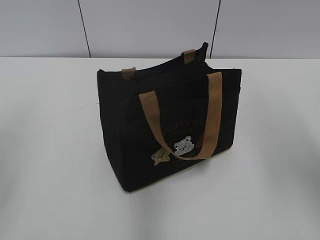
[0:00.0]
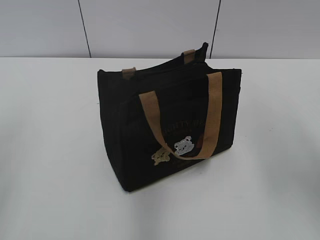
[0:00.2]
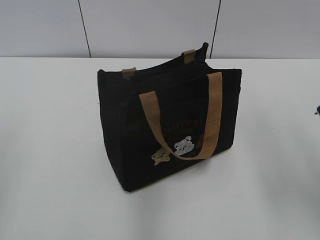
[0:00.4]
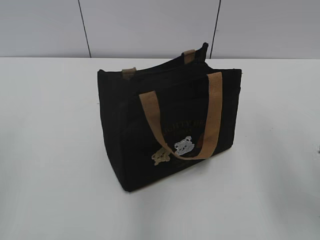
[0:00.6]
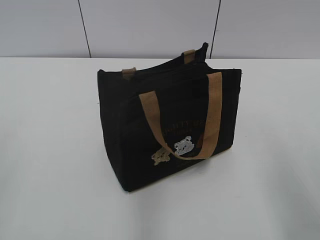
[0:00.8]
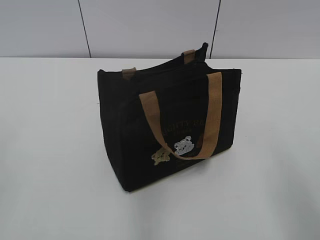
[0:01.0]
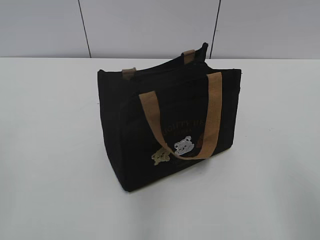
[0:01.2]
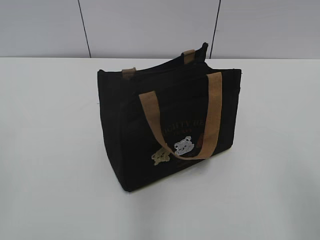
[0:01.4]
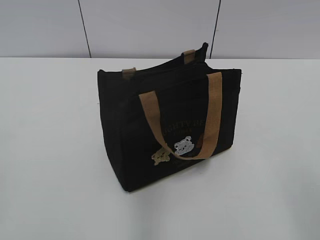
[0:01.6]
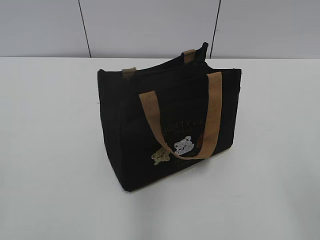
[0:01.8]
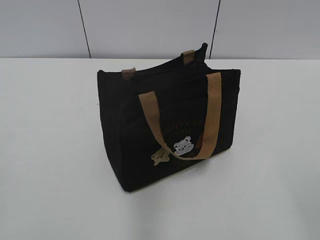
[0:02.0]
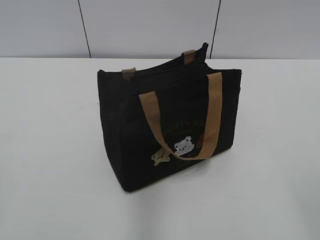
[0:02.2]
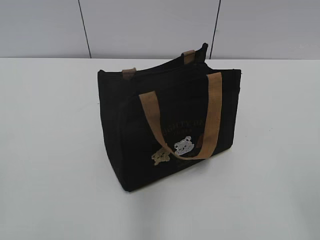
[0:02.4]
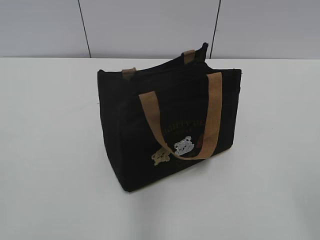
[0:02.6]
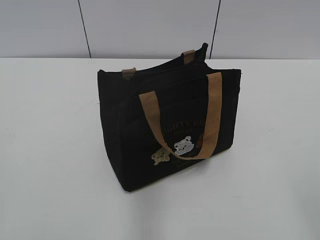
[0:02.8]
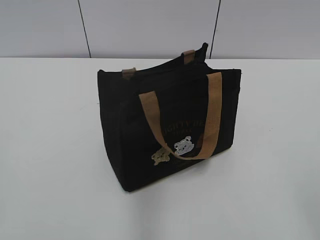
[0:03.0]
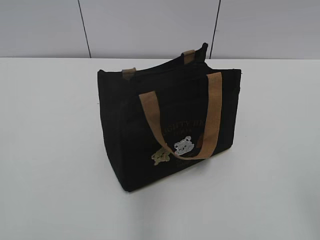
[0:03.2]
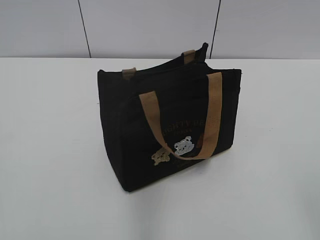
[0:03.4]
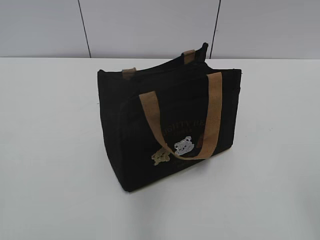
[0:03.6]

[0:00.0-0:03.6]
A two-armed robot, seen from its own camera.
0:00.0 to 0:01.8: The right gripper travels backward and downward by roughly 20 cm.
